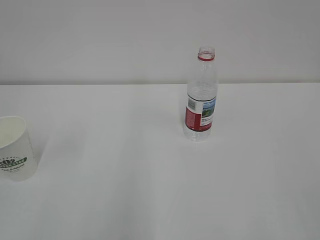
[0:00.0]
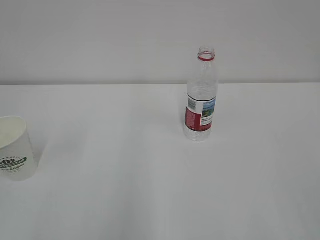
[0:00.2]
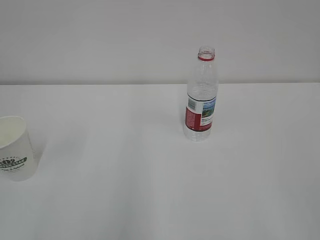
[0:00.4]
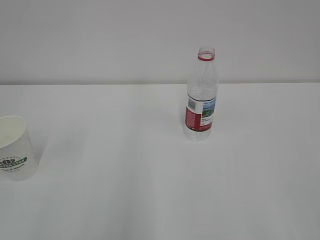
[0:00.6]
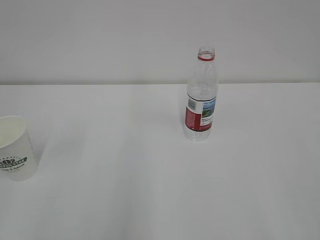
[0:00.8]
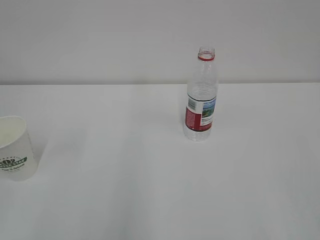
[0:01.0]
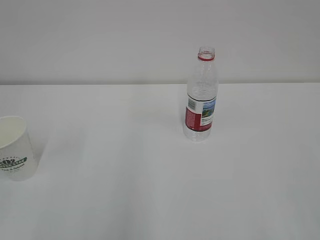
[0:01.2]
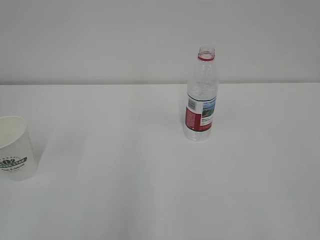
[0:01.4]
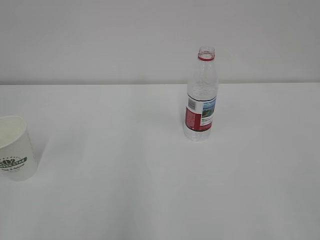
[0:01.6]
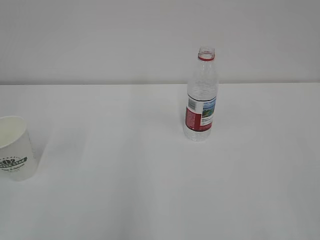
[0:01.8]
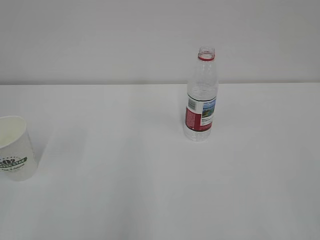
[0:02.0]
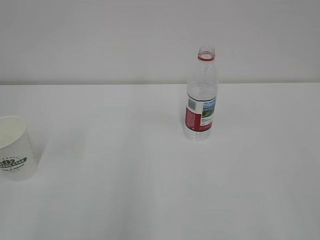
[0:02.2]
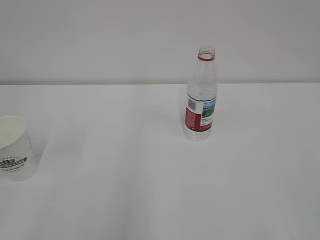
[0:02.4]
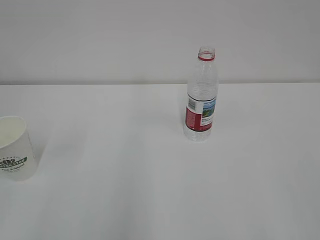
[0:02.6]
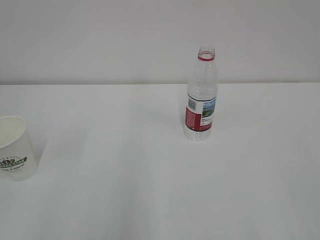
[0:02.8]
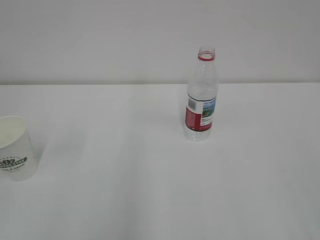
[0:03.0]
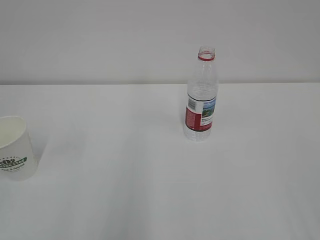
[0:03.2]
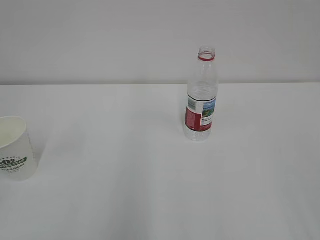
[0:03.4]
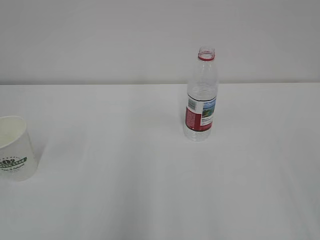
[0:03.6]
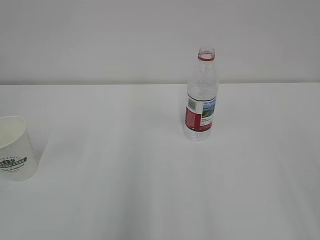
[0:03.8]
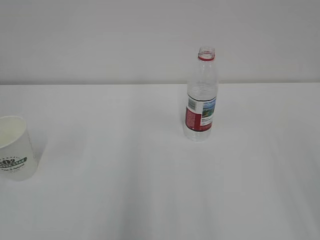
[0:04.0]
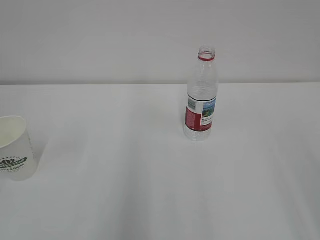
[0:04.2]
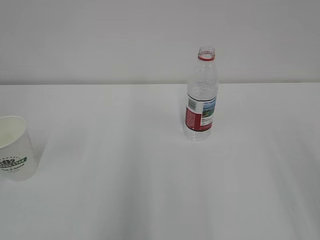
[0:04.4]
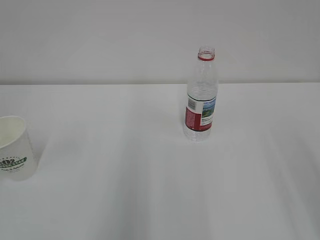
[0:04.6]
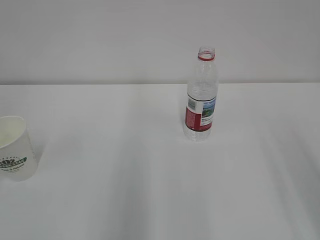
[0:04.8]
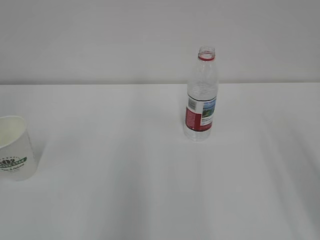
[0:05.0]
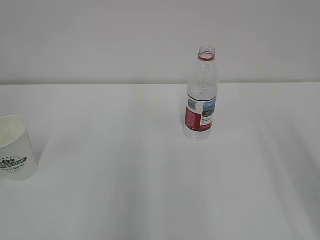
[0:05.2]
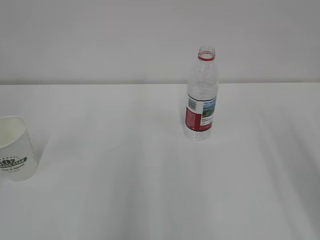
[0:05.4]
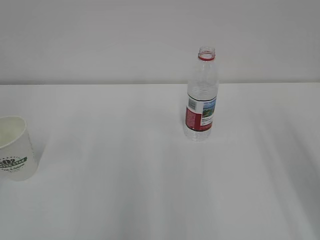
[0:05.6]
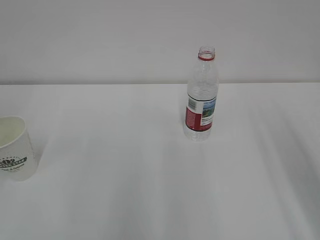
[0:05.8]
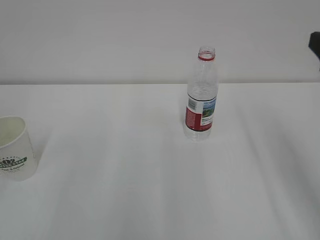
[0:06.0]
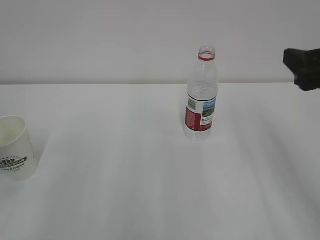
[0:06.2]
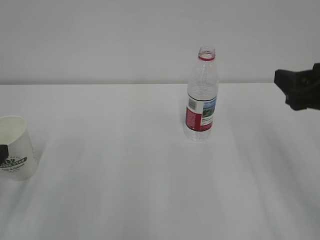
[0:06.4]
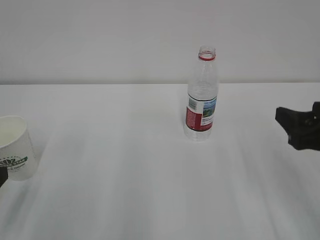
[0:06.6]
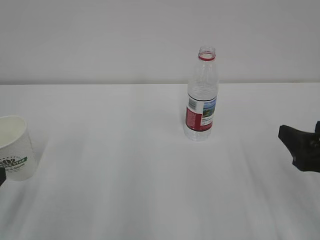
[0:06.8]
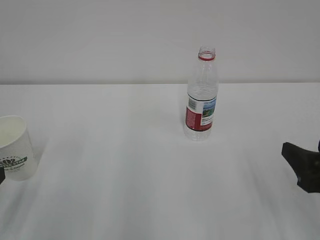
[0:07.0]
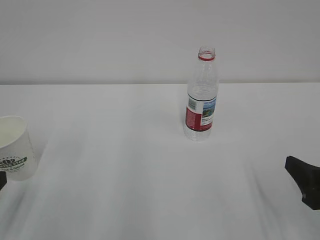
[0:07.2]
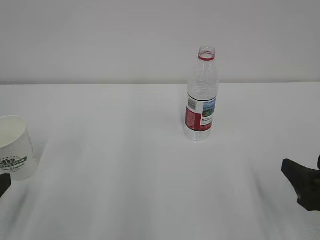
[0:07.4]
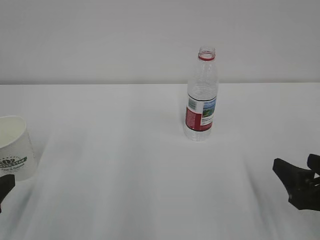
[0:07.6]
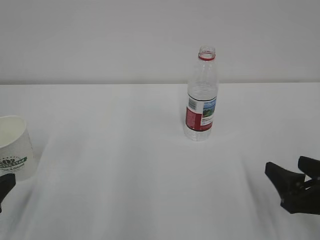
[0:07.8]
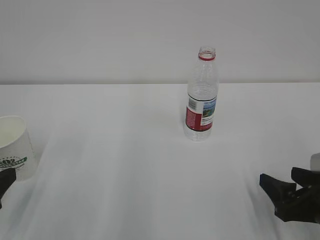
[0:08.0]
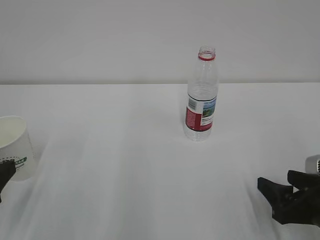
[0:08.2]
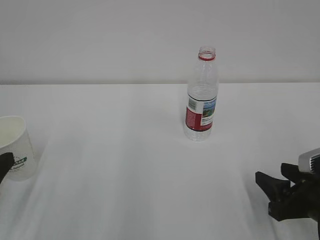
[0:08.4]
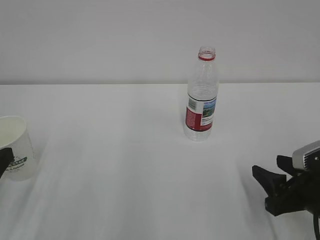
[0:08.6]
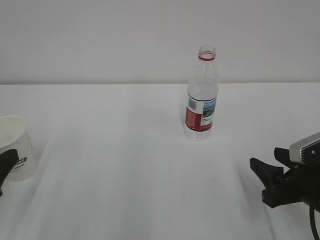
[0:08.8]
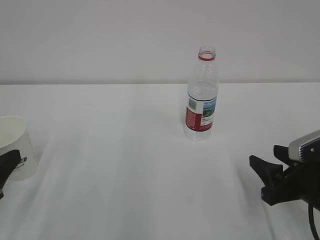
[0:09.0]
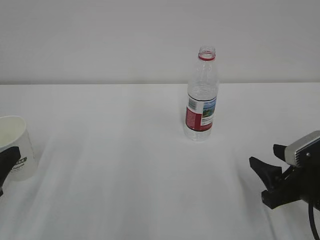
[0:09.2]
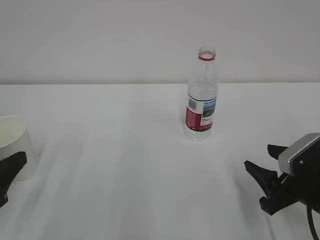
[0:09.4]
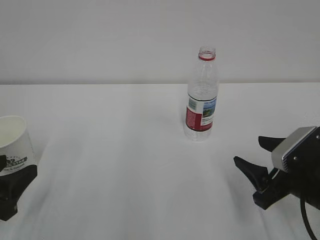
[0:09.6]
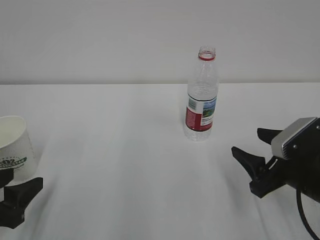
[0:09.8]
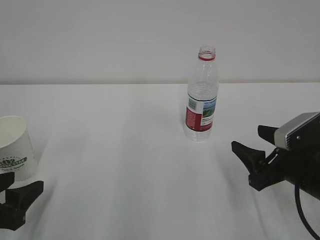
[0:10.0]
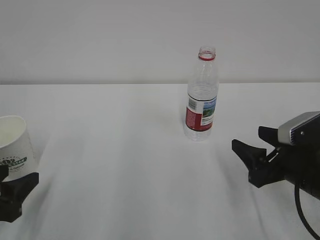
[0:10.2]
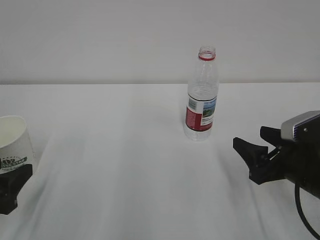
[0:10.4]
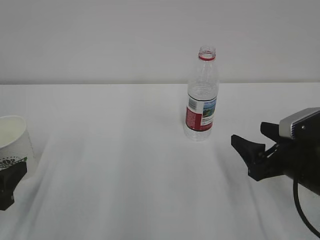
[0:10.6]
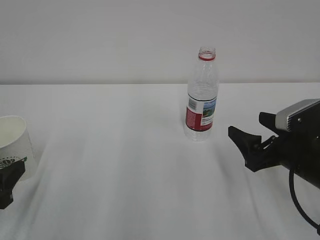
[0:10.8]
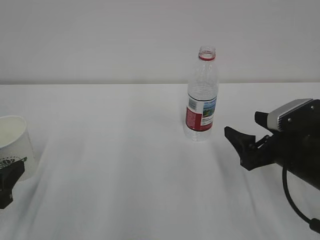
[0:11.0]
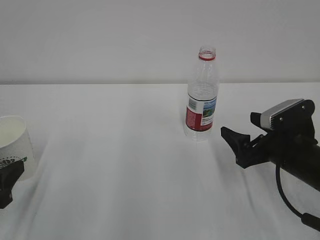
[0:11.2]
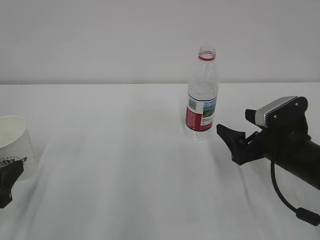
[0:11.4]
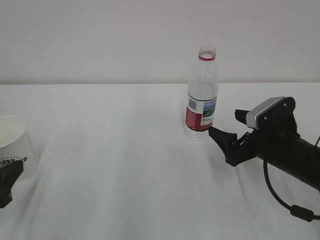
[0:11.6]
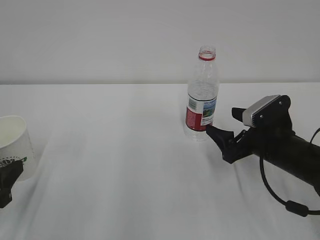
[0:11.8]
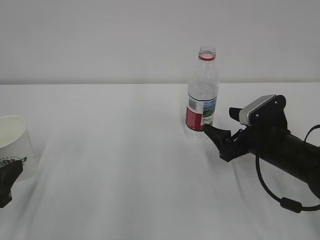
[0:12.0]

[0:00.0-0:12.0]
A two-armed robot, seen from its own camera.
0:06.0 to 0:07.6: The right gripper heads downward, covering approximately 15 cm, while the left gripper heads downward and backward, covering roughly 10 cm.
0:07.6 to 0:09.0: The right gripper shifts by some 5 cm, and closes its fingers.
0:09.0 to 0:10.4: The right gripper opens.
0:10.4 to 0:12.0: The right gripper moves forward, about 10 cm, and opens.

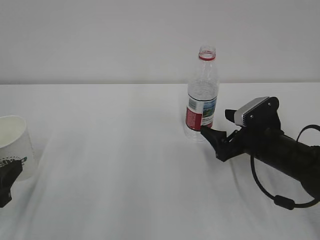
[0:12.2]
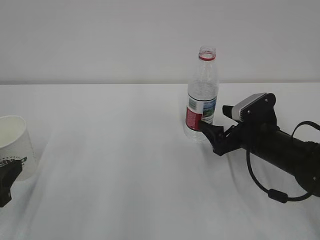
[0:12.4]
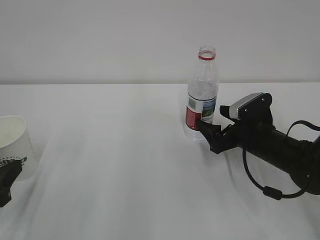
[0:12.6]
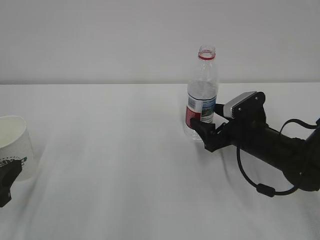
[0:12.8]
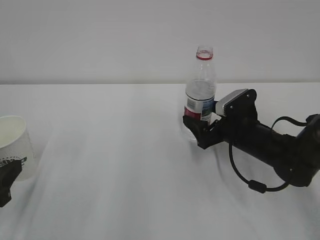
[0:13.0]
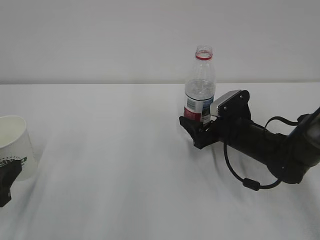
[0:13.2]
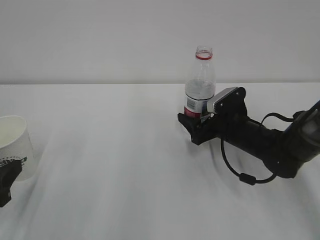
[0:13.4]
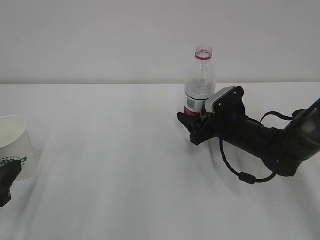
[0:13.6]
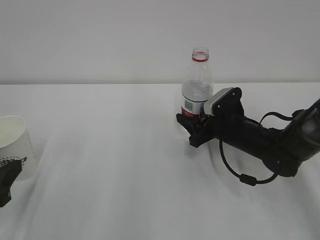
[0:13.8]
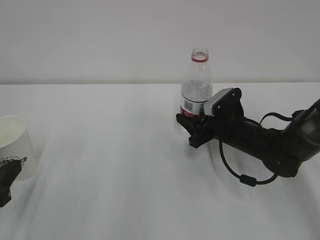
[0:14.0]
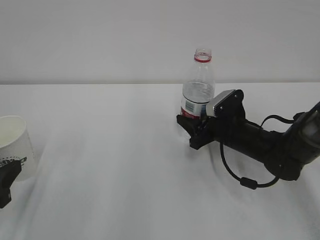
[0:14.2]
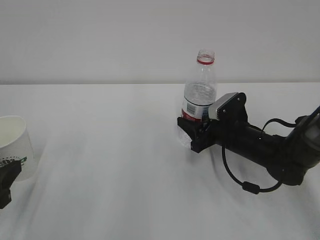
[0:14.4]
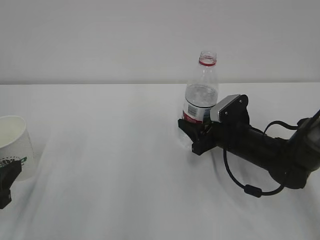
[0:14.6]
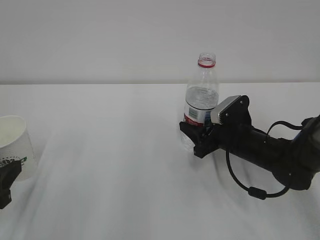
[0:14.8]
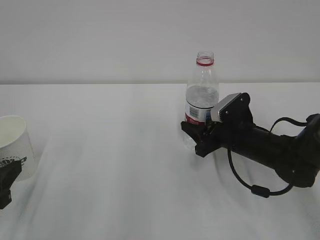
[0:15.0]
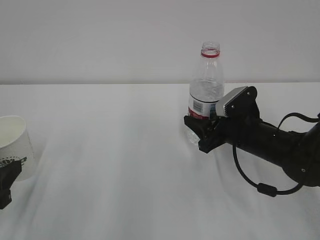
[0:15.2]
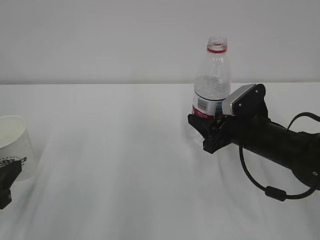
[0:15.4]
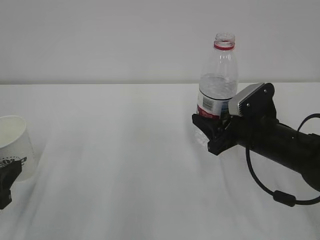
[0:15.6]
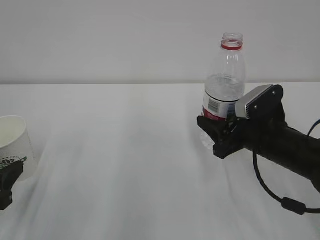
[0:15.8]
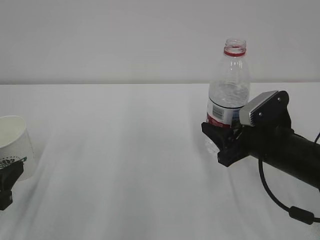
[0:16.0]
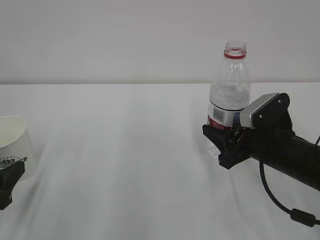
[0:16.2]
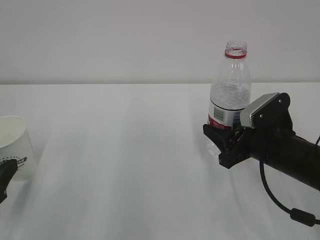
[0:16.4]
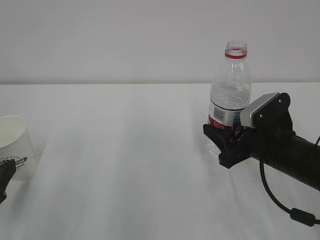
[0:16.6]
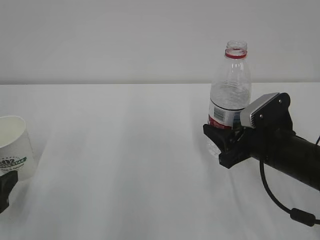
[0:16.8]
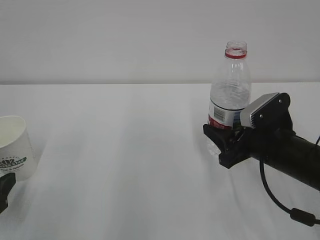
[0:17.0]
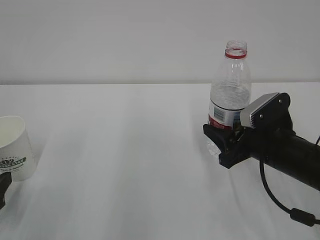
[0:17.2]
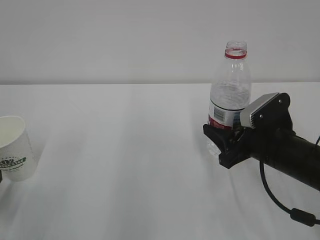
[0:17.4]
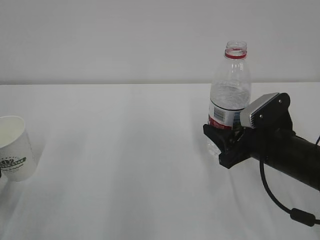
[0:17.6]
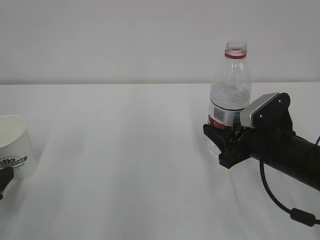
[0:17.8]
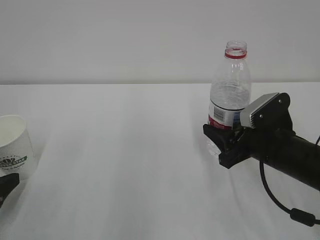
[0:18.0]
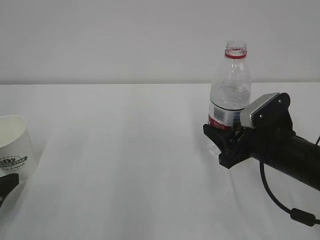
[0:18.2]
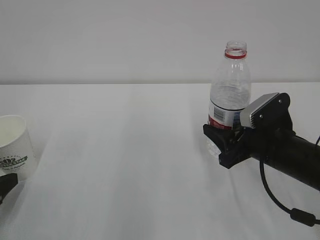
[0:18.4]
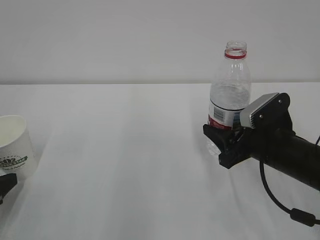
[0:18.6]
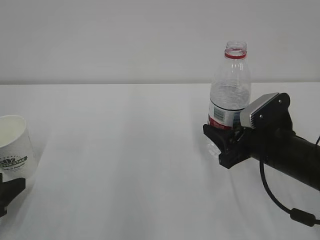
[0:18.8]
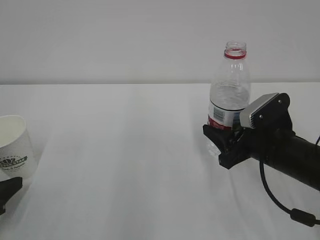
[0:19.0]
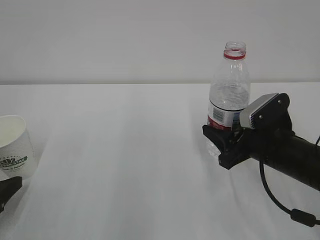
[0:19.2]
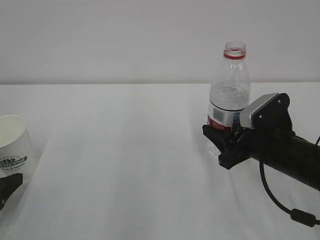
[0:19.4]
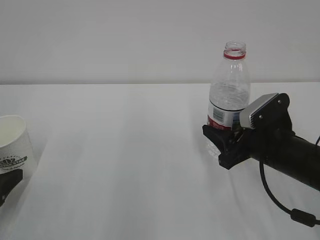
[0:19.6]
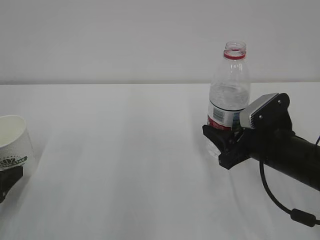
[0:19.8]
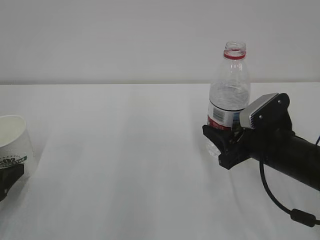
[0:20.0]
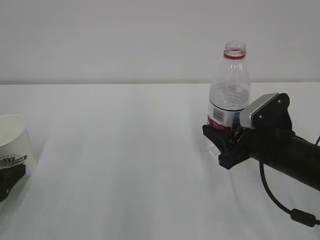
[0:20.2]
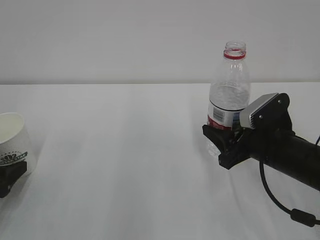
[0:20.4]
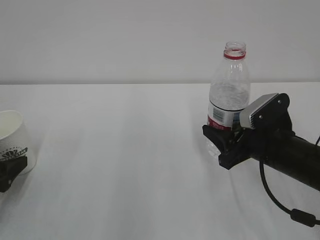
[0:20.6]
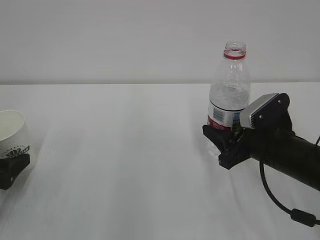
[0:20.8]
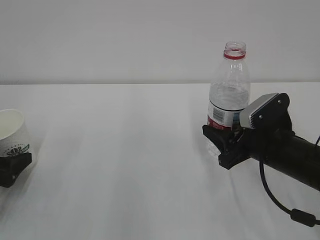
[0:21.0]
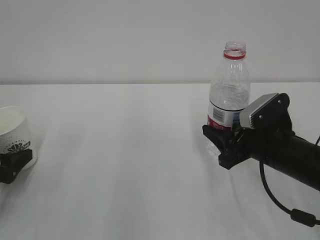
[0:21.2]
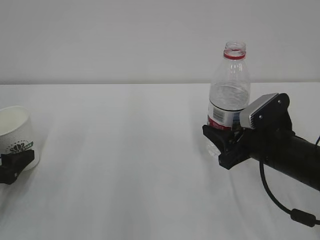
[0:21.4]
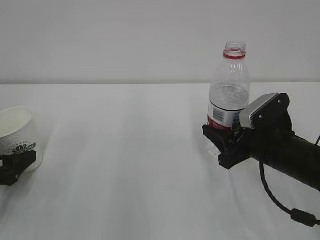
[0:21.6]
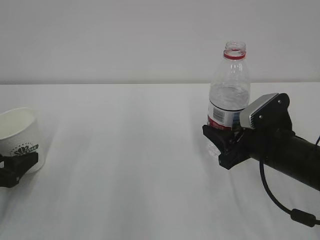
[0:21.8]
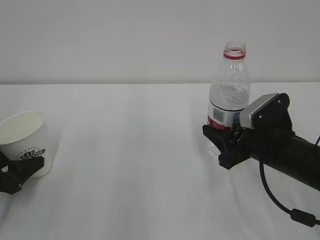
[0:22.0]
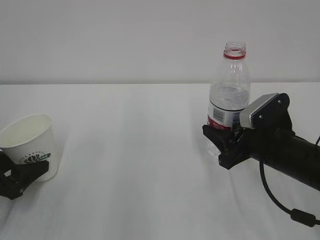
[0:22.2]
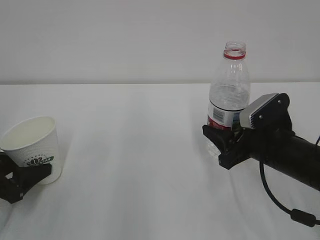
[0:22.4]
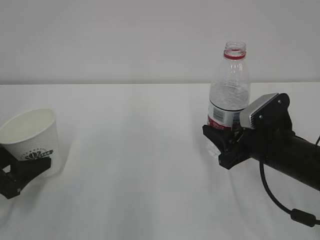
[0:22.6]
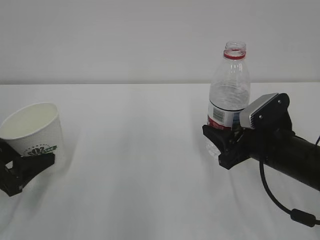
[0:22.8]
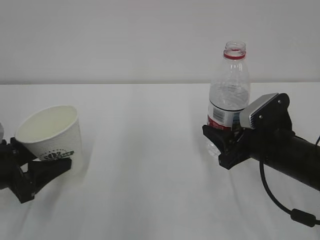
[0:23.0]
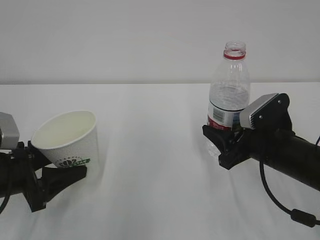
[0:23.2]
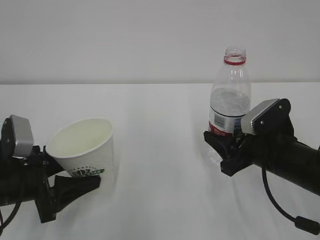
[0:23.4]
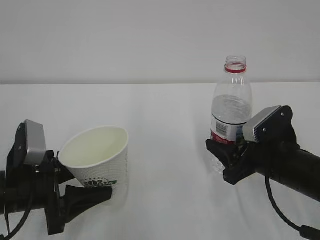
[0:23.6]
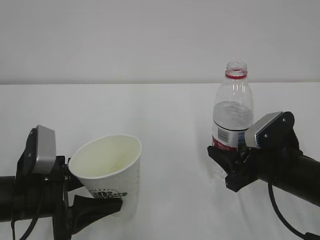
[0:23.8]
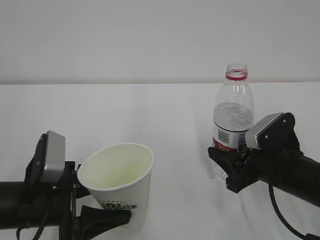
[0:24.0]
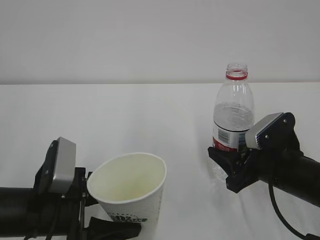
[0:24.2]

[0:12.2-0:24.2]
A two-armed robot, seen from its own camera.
0:12.2 to 0:13.8: The right gripper is displaced forward by approximately 5 cm, and closes its fingers.
0:13.8 to 0:15.2: The grippers move only a little.
0:15.2 to 0:16.6: The left gripper opens up. Meanwhile the right gripper moves backward, approximately 5 cm.
0:16.6 to 0:18.2: The left gripper shifts by approximately 5 cm.
0:19.8 to 0:21.2: The grippers move only a little.
0:21.2 to 0:22.6: The left gripper closes up.
0:22.6 to 0:24.2: The left gripper shifts approximately 15 cm to the right.
